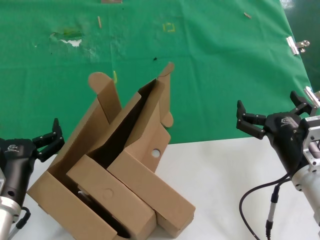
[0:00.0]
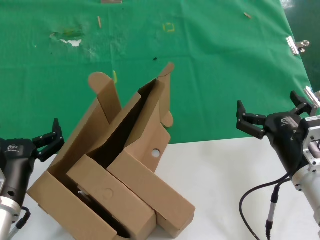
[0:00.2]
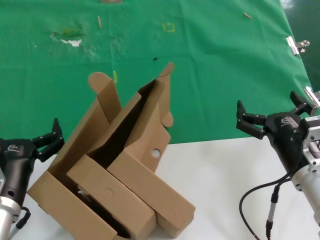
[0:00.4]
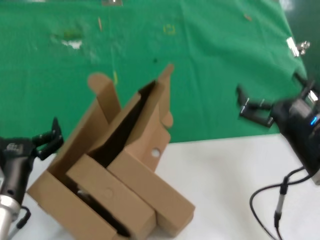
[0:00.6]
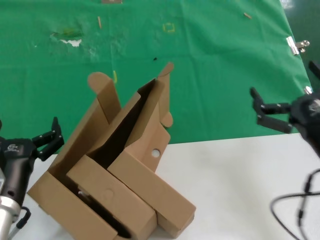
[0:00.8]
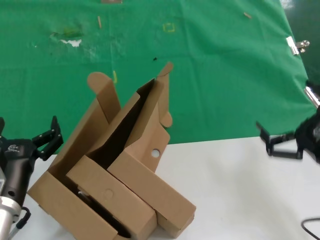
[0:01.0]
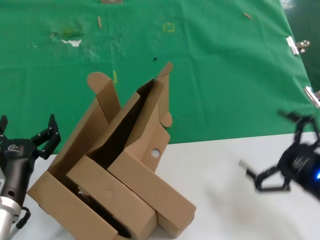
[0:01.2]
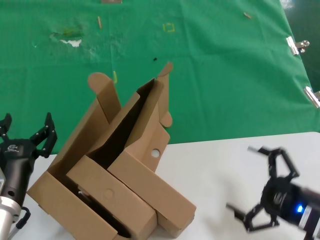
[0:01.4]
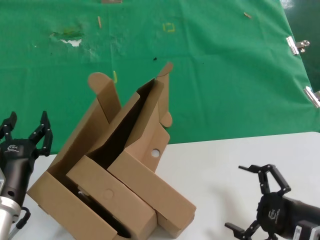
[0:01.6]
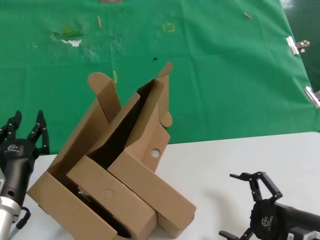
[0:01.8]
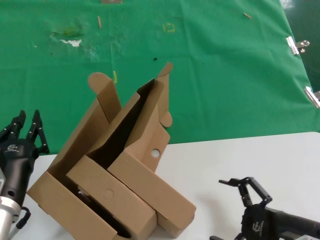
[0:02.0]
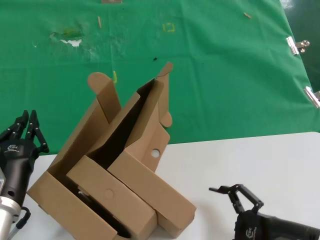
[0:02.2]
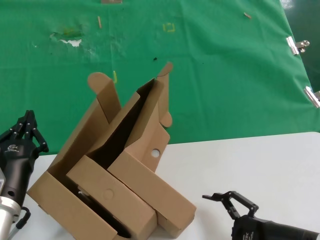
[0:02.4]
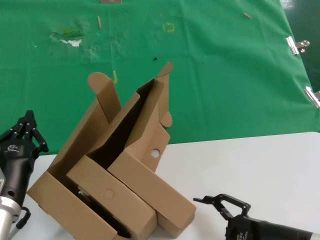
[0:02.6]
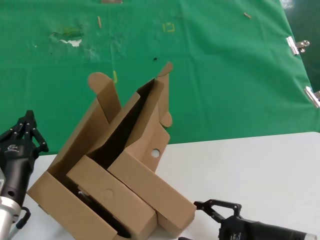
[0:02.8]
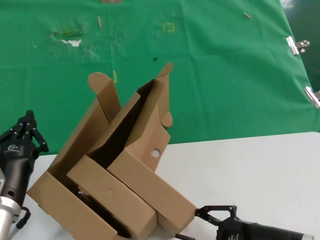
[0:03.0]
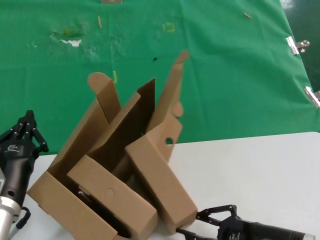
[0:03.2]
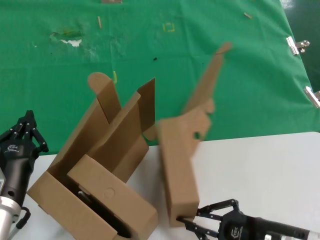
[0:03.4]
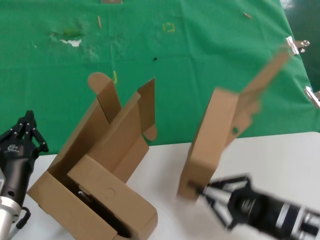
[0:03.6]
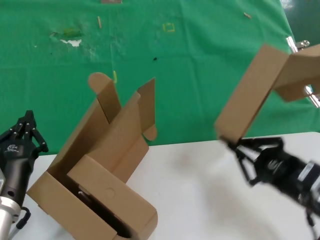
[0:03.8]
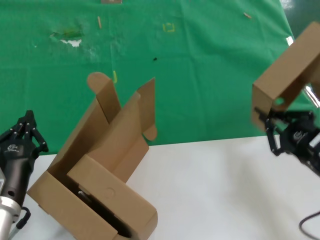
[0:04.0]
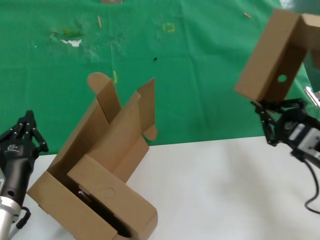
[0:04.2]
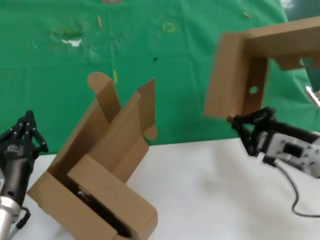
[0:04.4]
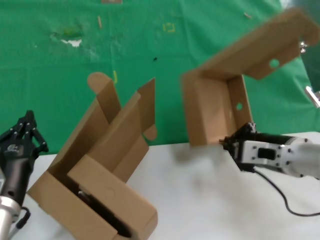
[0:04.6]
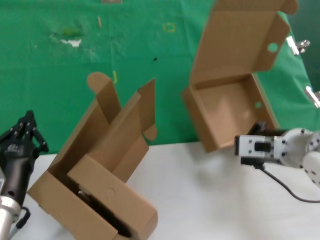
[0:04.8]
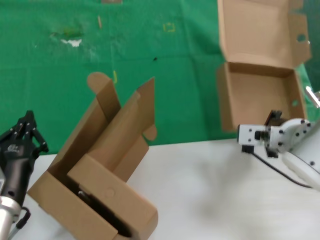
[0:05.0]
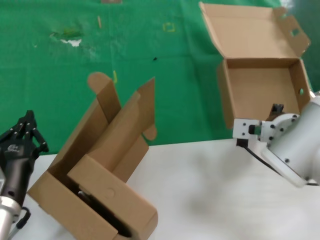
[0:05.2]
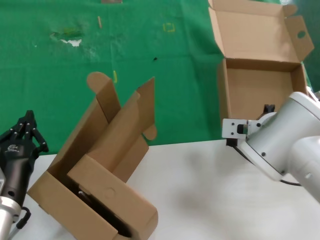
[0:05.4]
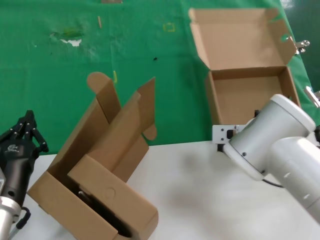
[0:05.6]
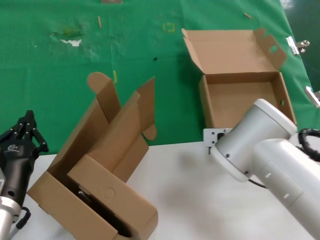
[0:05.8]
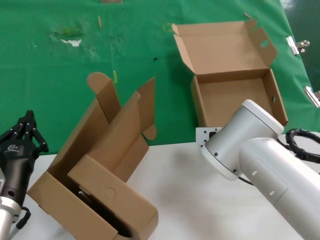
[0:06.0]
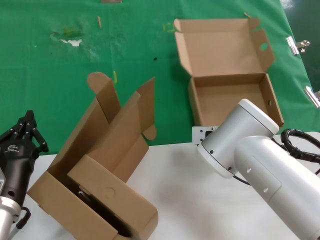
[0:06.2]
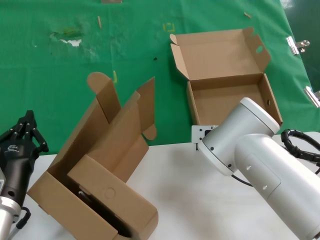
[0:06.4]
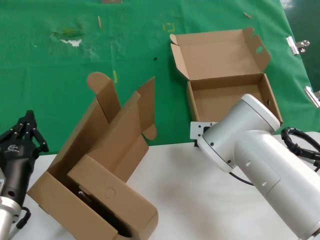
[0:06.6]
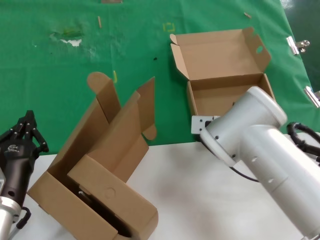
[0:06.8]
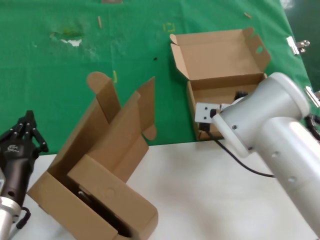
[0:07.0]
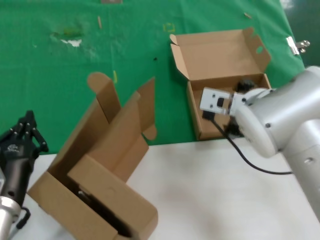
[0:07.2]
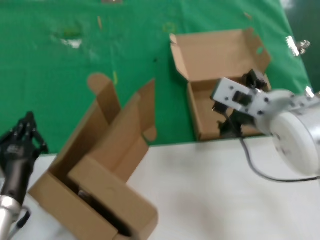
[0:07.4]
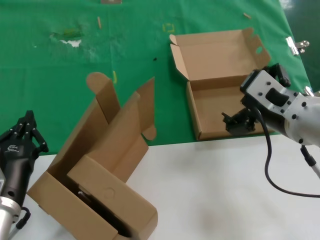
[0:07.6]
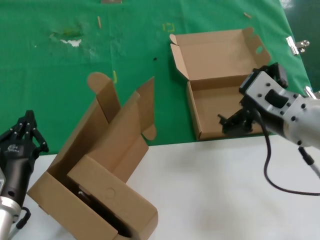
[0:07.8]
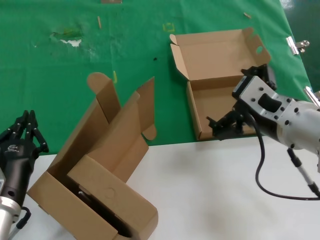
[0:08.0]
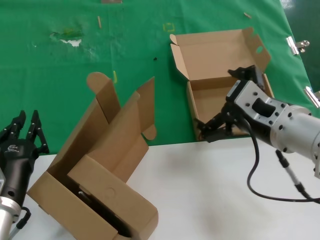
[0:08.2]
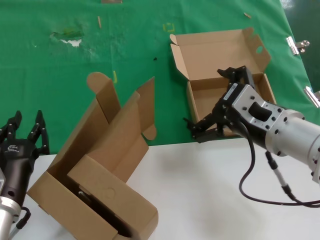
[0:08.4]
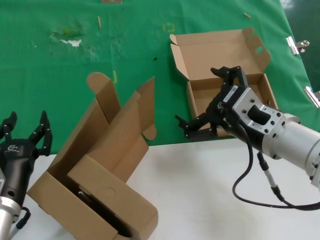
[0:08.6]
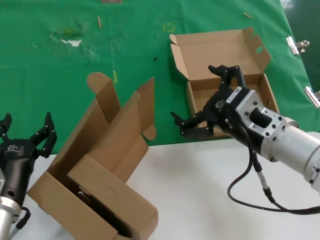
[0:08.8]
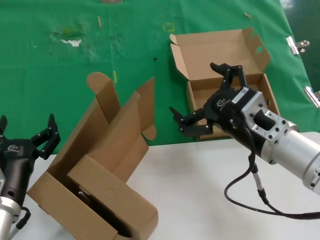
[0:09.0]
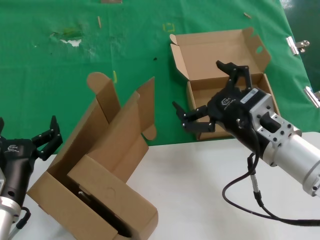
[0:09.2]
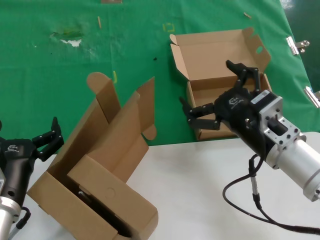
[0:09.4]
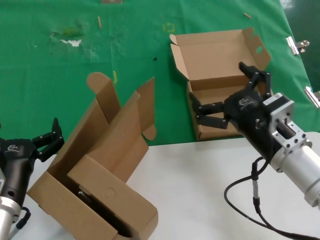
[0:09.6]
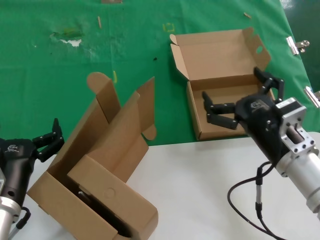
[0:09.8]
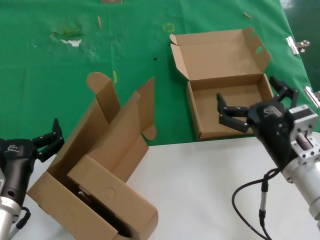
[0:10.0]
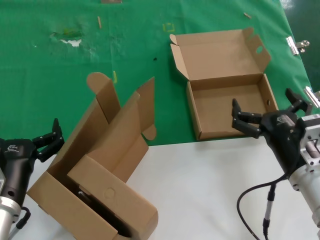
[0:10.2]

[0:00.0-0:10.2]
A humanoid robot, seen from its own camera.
Task of the whole recording: pick up the paper box and put it at the back.
Step, 0:00.0 to 0:03.4: Grasp the paper box.
Step, 0:03.6 to 0:06.6: Place the paper box on the table.
0:00.0 to 0:01.4: The right hand heads to the right and backward, covering approximately 10 cm.
0:01.4 to 0:03.0: The right hand shifts about 5 cm to the left.
0:03.0 to 0:04.4: The right hand goes roughly 15 cm upward and forward.
0:04.4 to 0:05.8: The right hand heads to the left and forward, covering roughly 20 cm.
0:05.8 to 0:07.2: The right hand travels upward by some 10 cm.
0:07.2 to 0:08.8: The right hand shifts roughly 10 cm backward and to the right.
0:08.8 to 0:10.2: The right hand heads downward, covering approximately 10 cm.
